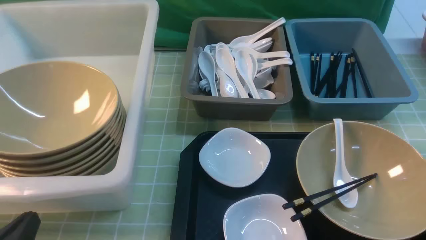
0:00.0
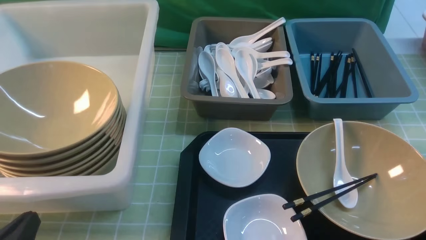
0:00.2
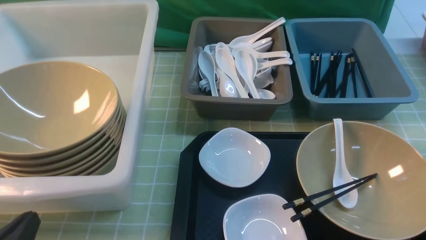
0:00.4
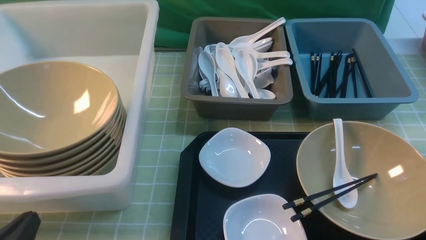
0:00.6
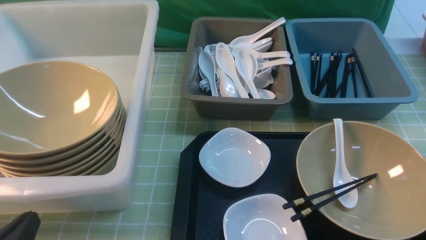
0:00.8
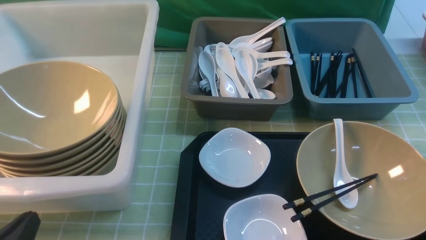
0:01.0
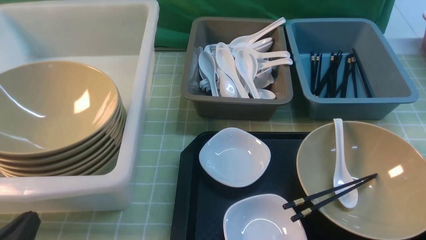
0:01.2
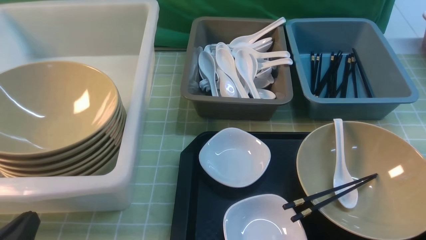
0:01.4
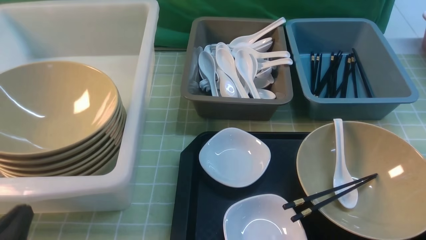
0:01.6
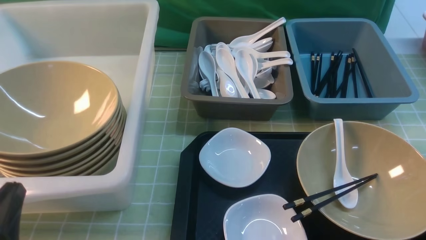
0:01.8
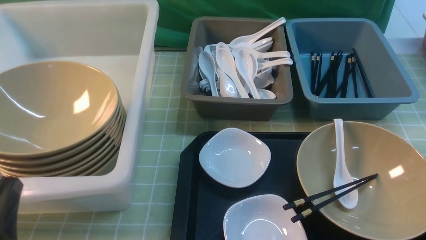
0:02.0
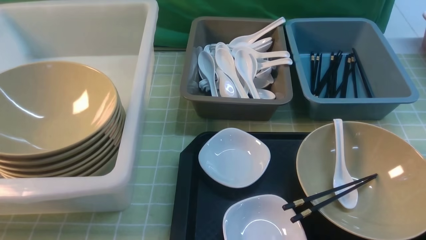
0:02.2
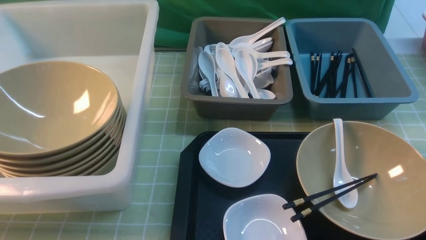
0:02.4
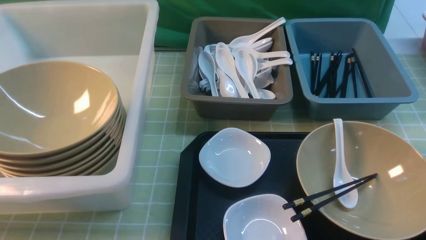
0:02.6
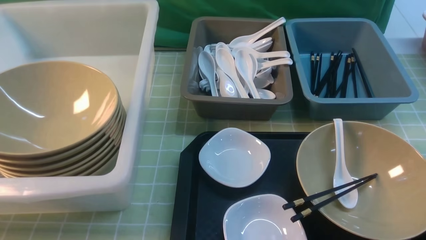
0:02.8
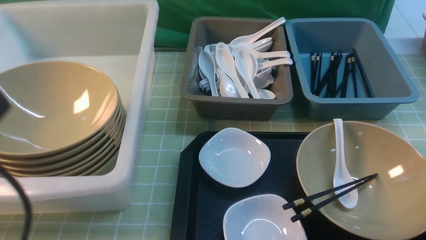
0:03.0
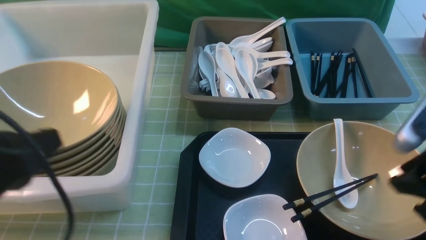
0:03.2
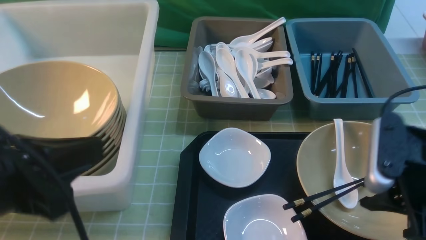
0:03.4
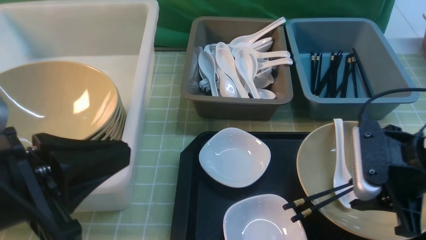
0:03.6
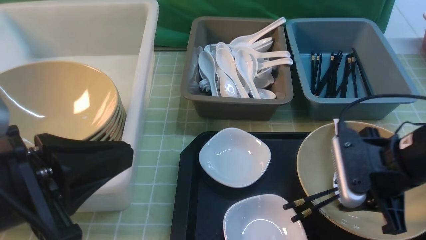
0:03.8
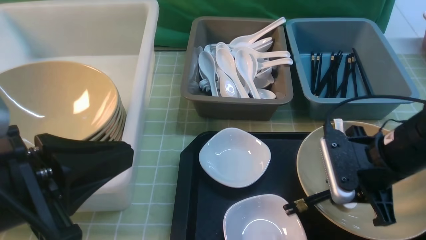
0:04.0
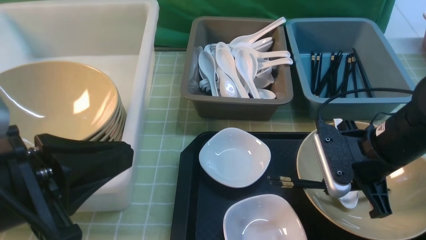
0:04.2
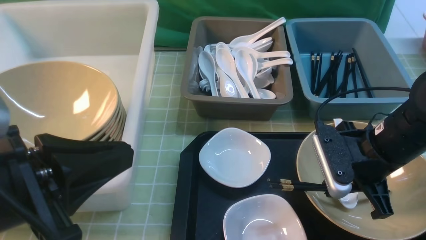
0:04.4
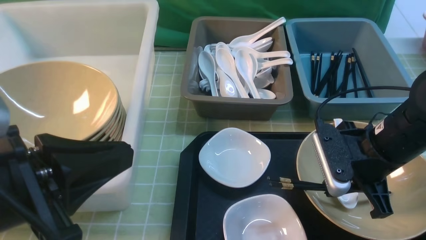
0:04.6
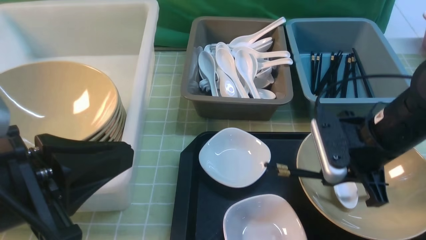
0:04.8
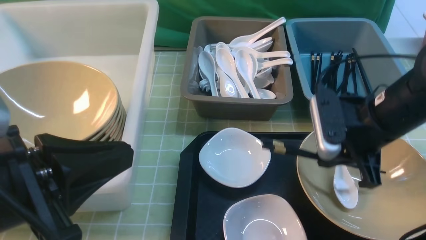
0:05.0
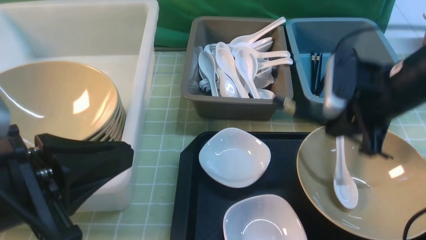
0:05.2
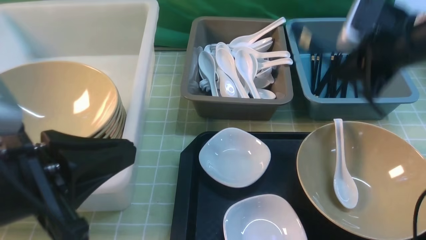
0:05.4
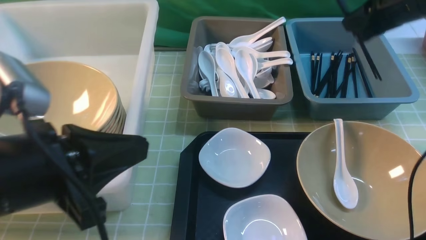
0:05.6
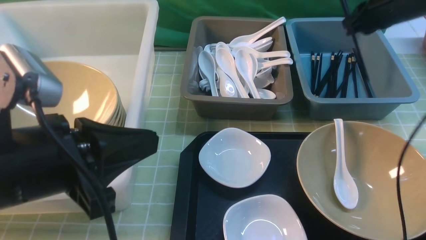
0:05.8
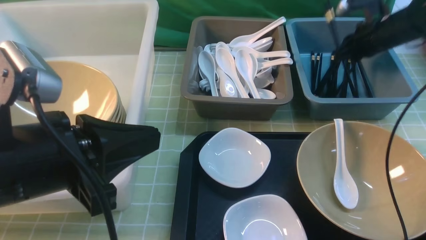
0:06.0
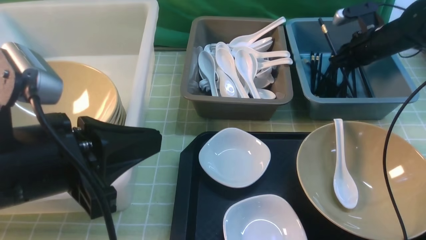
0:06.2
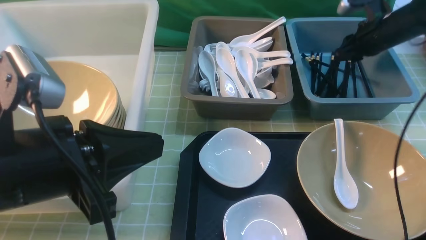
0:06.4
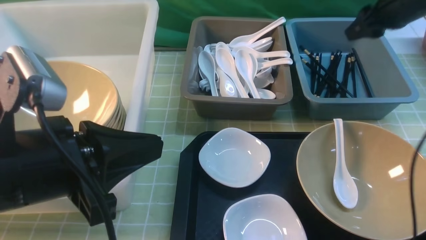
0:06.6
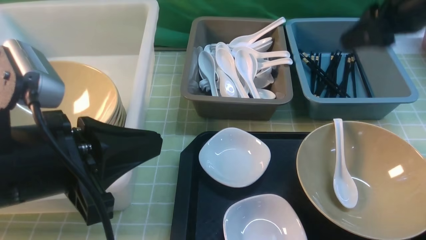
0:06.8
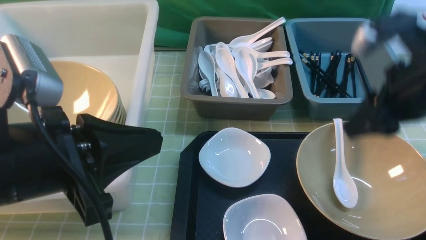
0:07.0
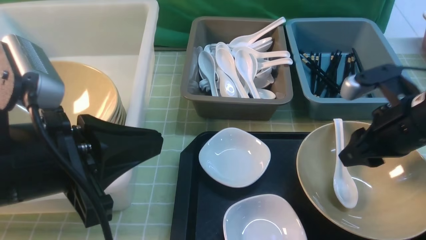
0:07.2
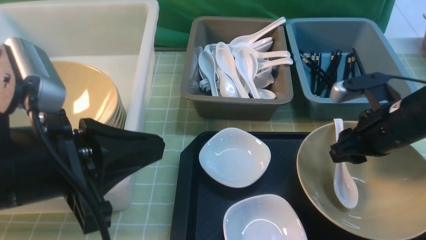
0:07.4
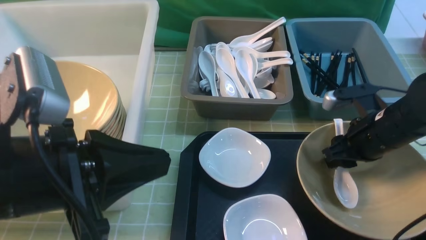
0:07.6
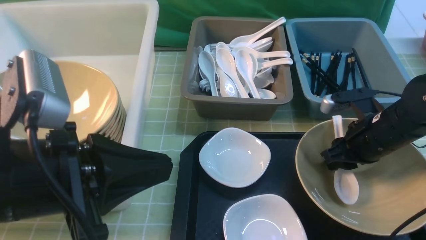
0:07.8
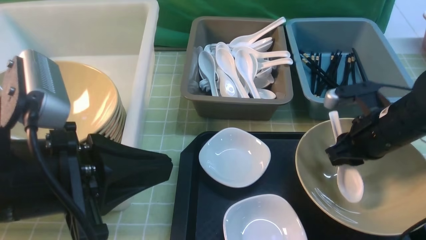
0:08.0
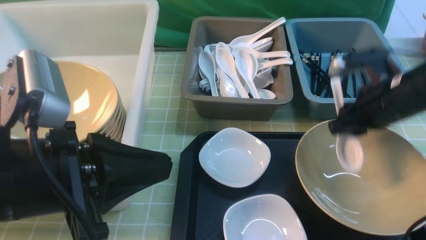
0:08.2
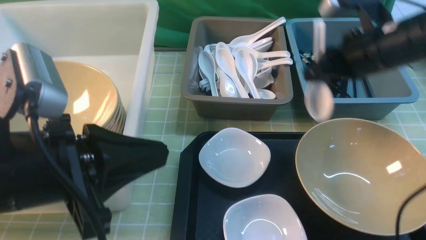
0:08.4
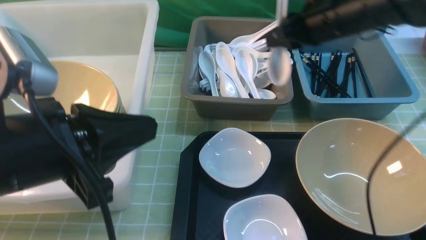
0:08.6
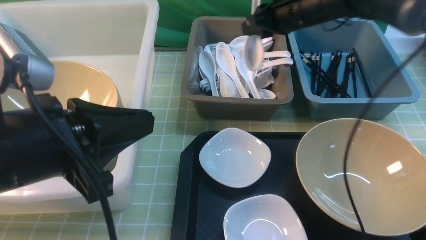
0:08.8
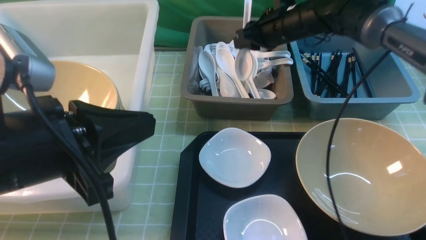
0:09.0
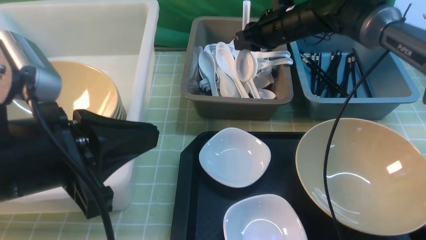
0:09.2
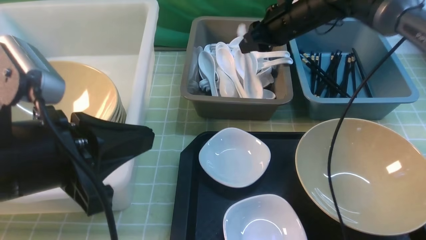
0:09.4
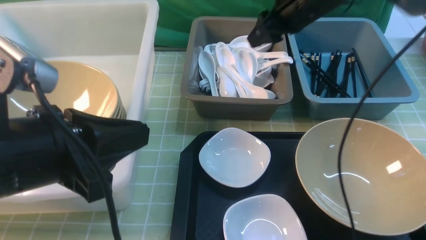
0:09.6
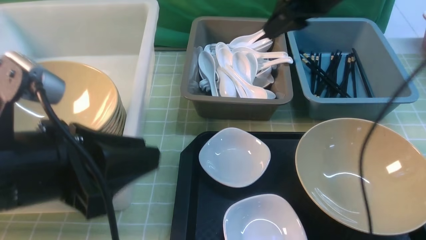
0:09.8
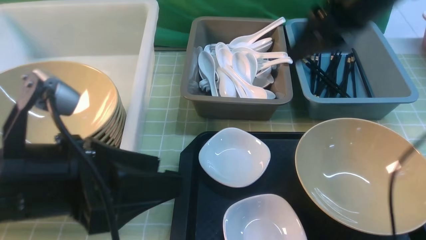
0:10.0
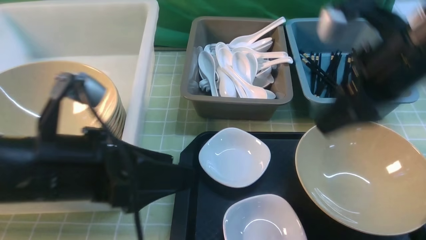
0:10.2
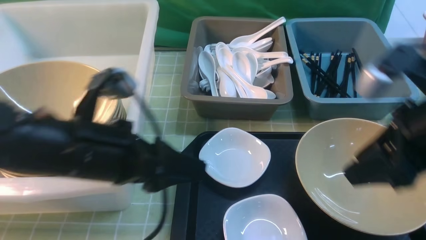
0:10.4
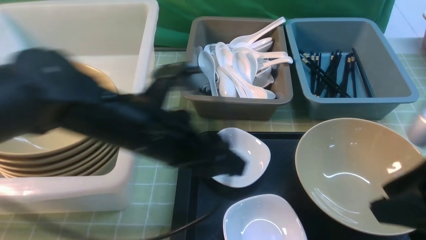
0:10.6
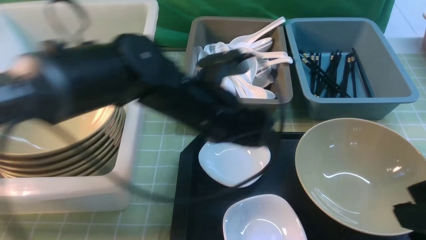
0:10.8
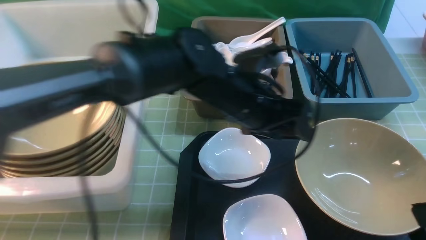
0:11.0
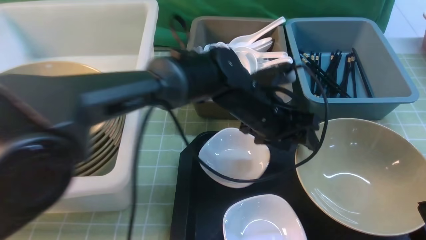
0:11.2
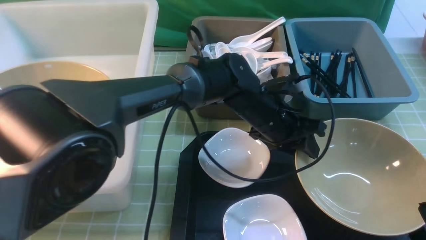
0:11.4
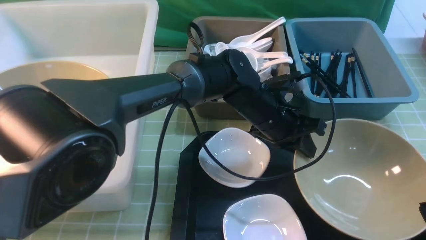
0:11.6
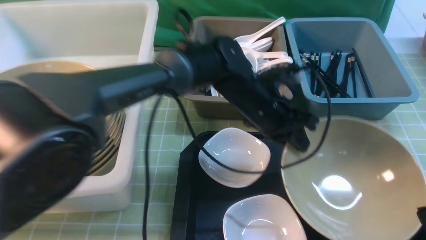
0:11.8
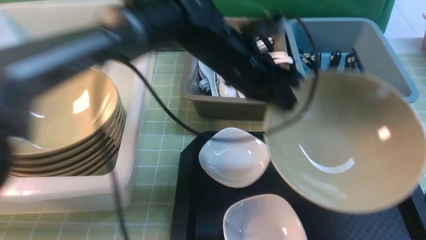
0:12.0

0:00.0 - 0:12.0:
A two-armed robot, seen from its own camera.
Task of the whole recording: on green table put chopsticks spoon bowls plates into blue grey white boxes.
Step, 0:00.0 - 0:04.8: use the right arm to grab the chopsticks.
Step, 0:05.0 - 0:06.4: use the right arm to put the chopsticks into the small storage box on the right.
Step, 0:06.8 - 0:08.2: use the right arm to grab the soup spoon in the middle.
Step, 0:08.4 - 0:09.6: use the right arm to put the soup spoon into the small storage box in the middle.
Step, 0:09.8 - 0:11.8: use the left arm to grab the yellow noodle bowl on the left.
0:01.6 - 0:03.0: The left gripper goes roughly 15 cm upward.
0:03.0 - 0:04.4: The right gripper moves downward, to the left and forward, about 15 cm, and closes its fingers, while the left gripper goes approximately 5 cm to the right.
0:04.4 - 0:06.0: The right gripper moves forward and to the right, some 25 cm.
0:06.0 - 0:07.6: The right gripper goes some 20 cm backward, and opens.
0:07.6 - 0:09.0: The right gripper shifts roughly 20 cm forward and to the left.
0:09.0 - 0:10.4: The left gripper heads forward, covering about 5 cm, and opens its fingers. The right gripper is displaced backward by roughly 30 cm, and opens up.
0:10.4 - 0:12.0: The left gripper goes roughly 20 cm forward and to the right, and closes up, while the right gripper moves backward, roughly 10 cm.

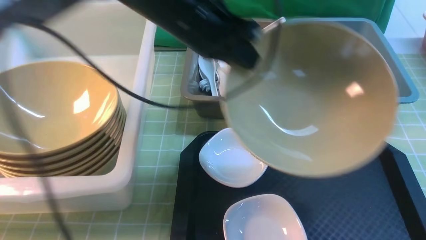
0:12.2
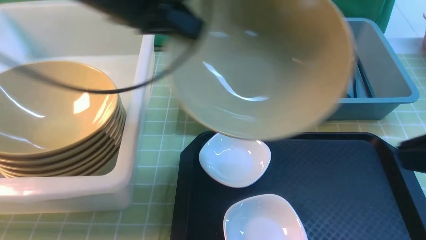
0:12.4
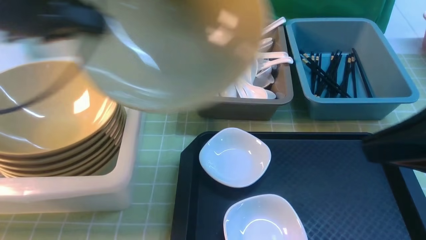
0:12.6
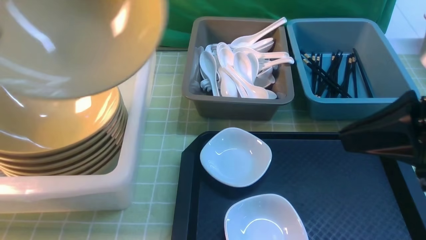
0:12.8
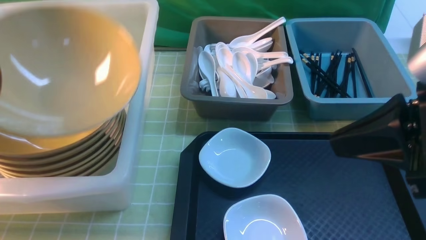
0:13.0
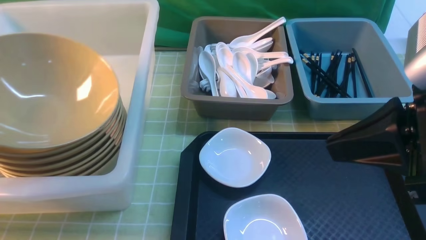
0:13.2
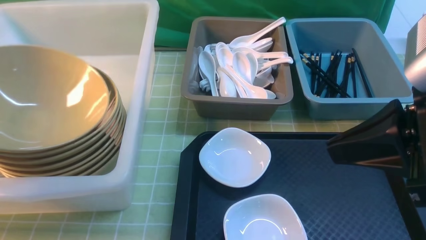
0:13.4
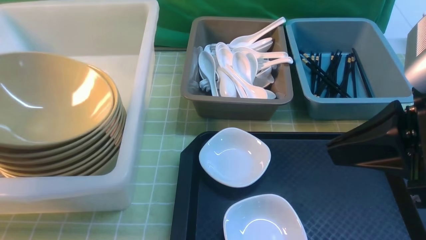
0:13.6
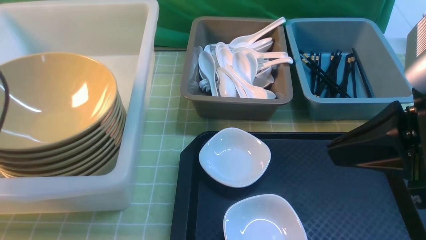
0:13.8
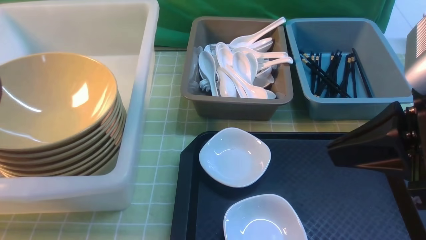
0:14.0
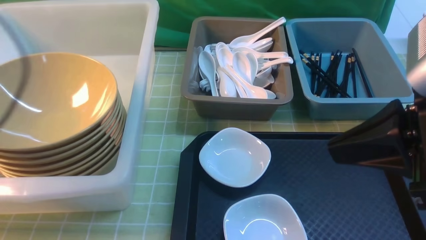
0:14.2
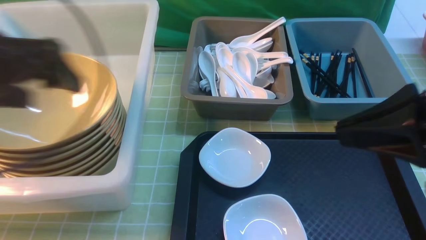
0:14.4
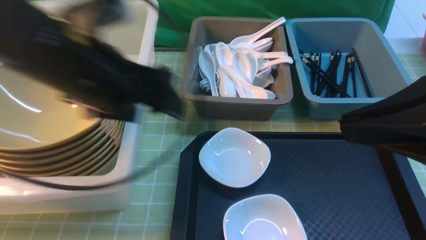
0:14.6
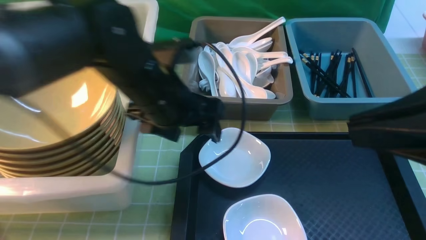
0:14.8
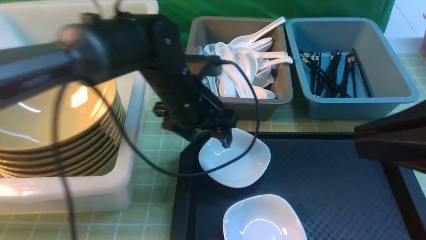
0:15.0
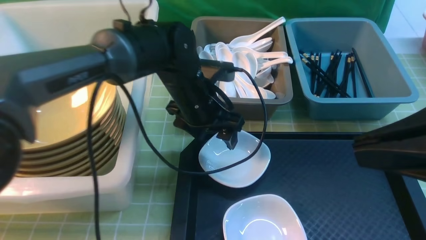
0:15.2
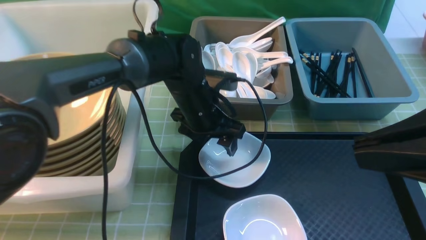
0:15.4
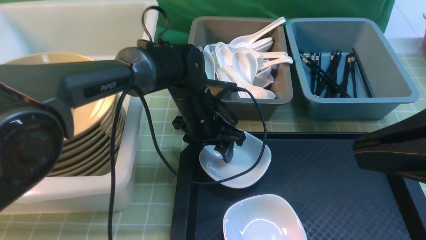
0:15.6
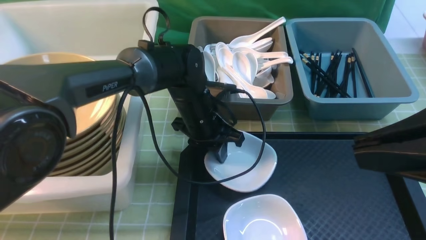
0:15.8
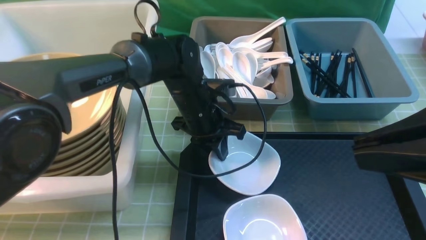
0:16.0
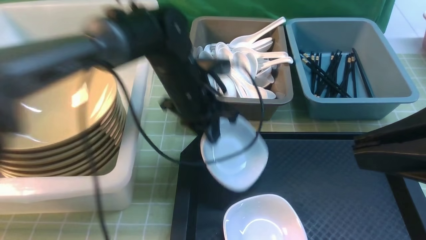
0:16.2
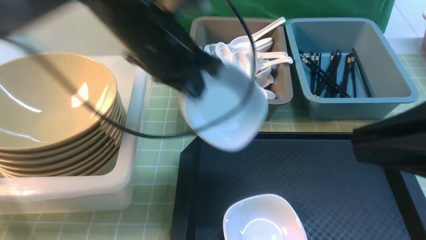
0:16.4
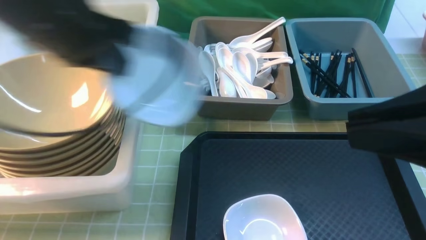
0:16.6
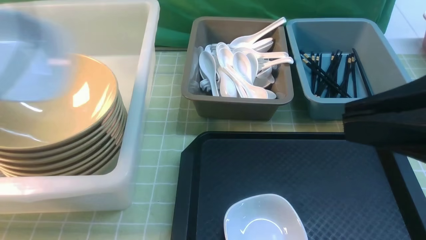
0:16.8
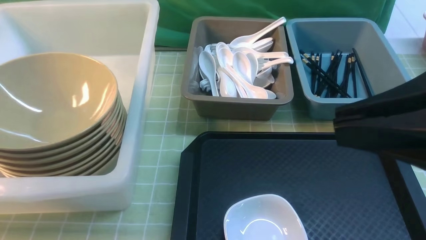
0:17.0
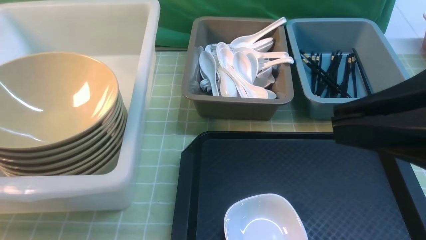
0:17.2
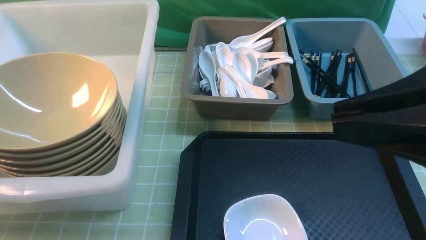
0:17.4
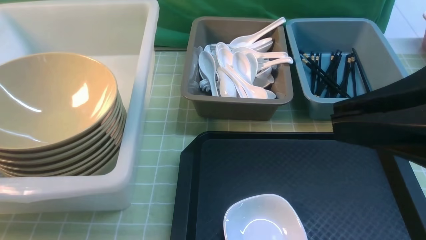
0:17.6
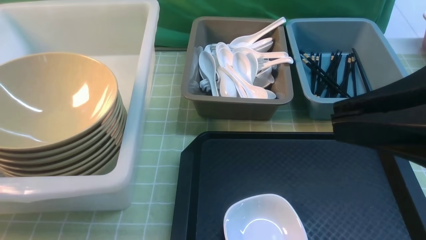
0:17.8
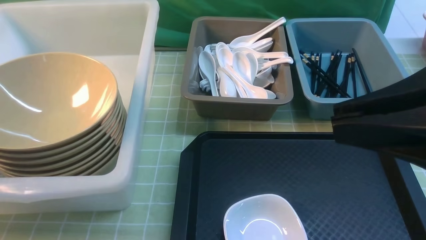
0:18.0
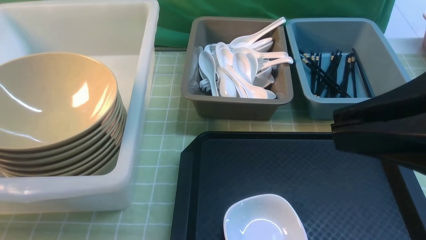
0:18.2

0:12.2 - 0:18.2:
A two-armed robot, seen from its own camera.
Task of the whole recording: on green table put chopsticks spoon bowls plates into blue grey white boxes.
Step, 0:12.2 - 0:14.2: use the left arm to put the noodle bowl into the large storage box on the left.
Step, 0:14.4 - 0:16.2: use the left arm to grab the plate.
0:12.2 - 0:13.8: The right gripper heads forward, covering roughly 5 cm, and closes its fingers. The left gripper heads to the left and backward, covering approximately 30 cm, and opens its fingers.
0:13.8 - 0:15.2: The left gripper heads to the right, forward and downward, covering about 35 cm, while the right gripper ends up roughly 5 cm from where it was.
0:15.2 - 0:16.6: The left gripper heads upward, to the left and backward, covering about 30 cm, and closes.
0:16.6 - 0:18.2: The left gripper travels to the left by some 20 cm, and opens.
